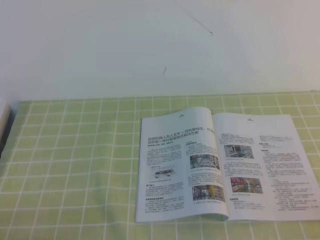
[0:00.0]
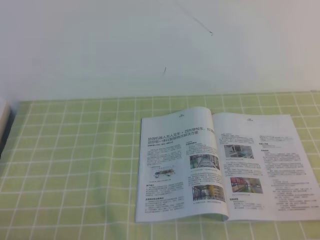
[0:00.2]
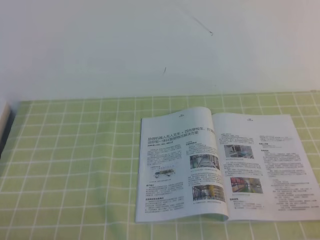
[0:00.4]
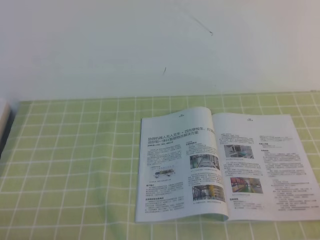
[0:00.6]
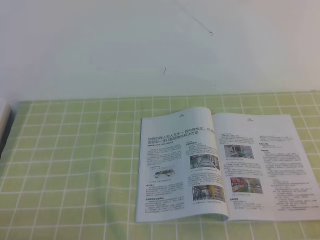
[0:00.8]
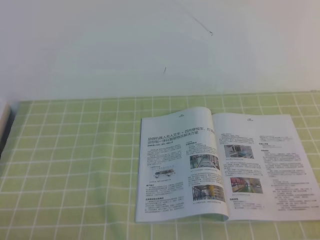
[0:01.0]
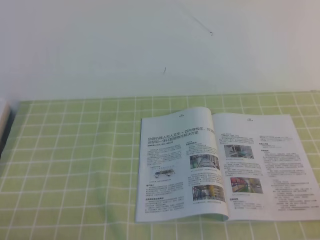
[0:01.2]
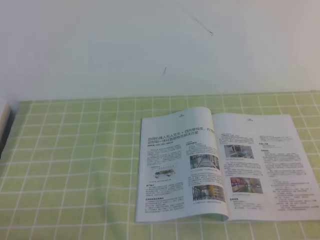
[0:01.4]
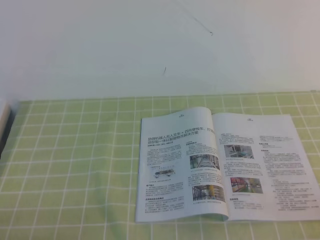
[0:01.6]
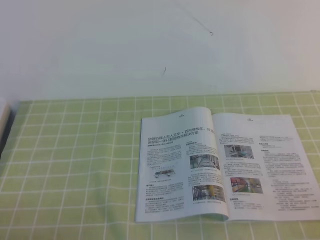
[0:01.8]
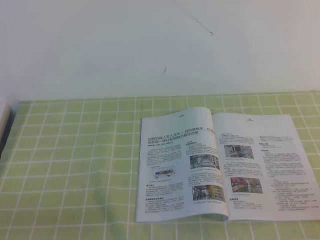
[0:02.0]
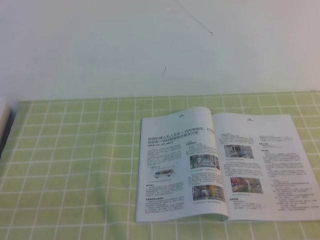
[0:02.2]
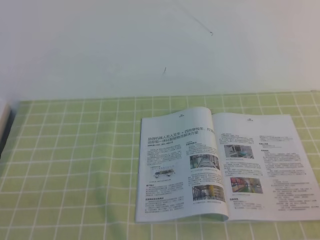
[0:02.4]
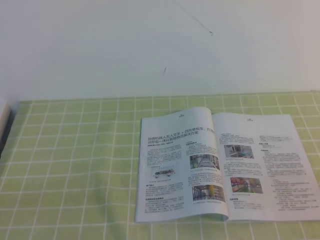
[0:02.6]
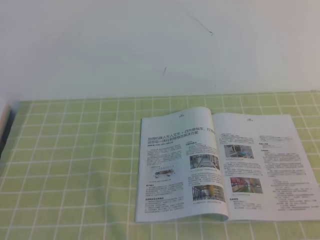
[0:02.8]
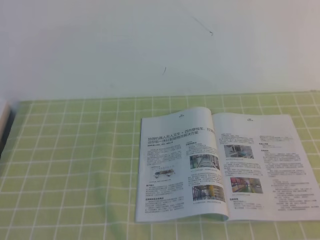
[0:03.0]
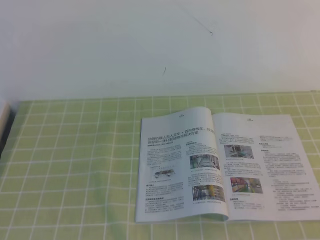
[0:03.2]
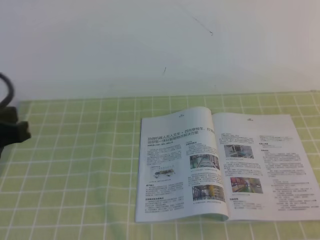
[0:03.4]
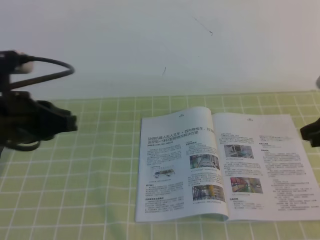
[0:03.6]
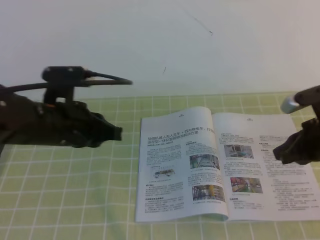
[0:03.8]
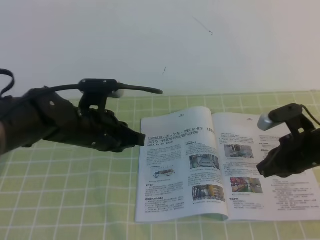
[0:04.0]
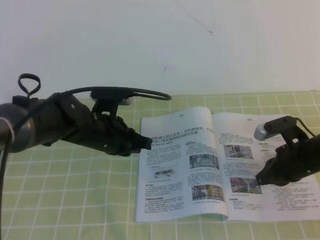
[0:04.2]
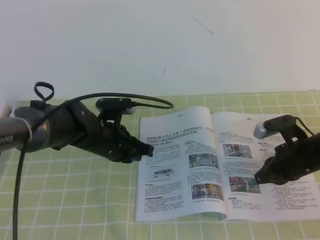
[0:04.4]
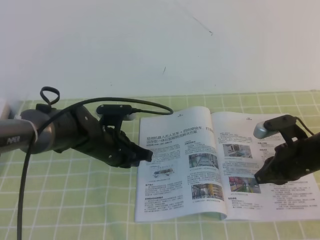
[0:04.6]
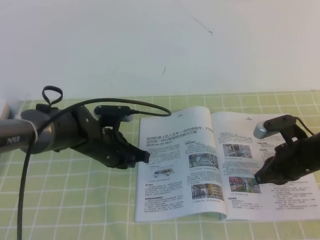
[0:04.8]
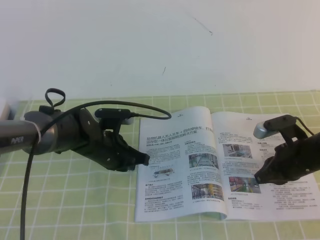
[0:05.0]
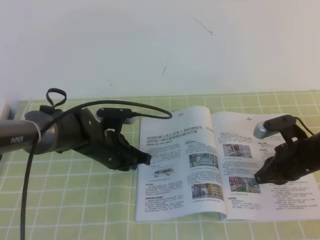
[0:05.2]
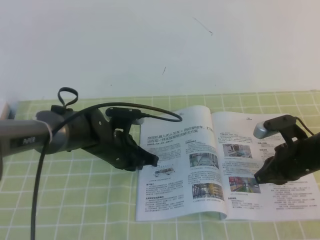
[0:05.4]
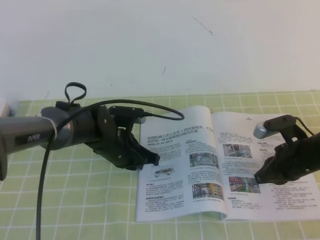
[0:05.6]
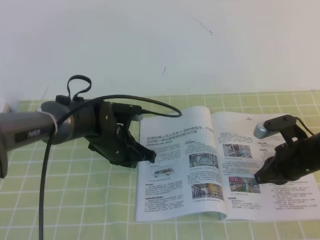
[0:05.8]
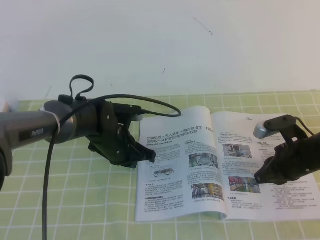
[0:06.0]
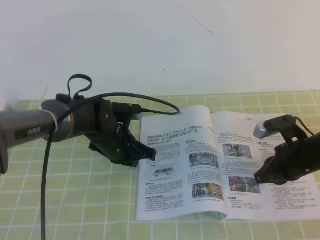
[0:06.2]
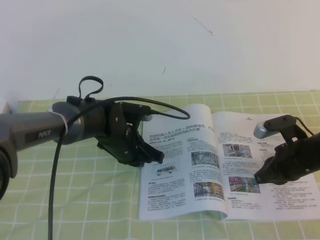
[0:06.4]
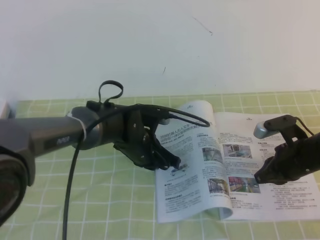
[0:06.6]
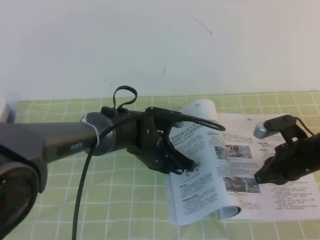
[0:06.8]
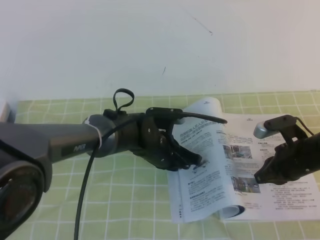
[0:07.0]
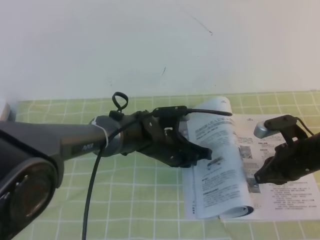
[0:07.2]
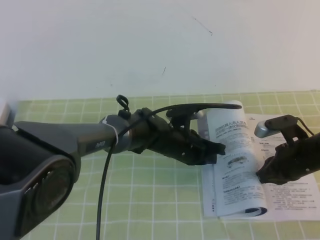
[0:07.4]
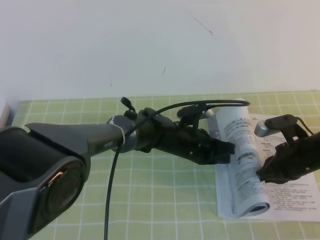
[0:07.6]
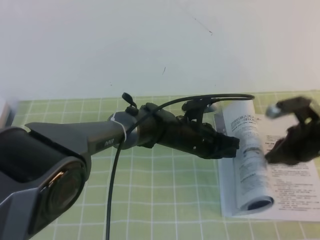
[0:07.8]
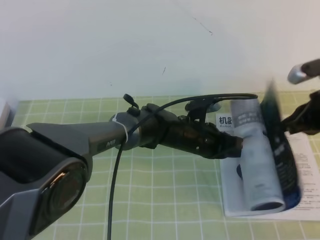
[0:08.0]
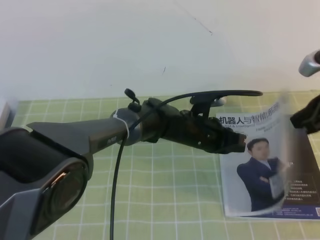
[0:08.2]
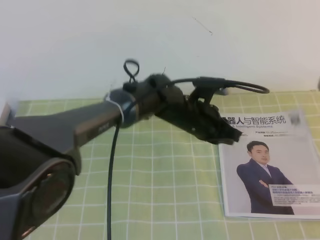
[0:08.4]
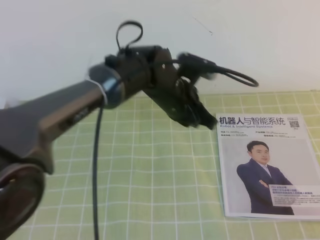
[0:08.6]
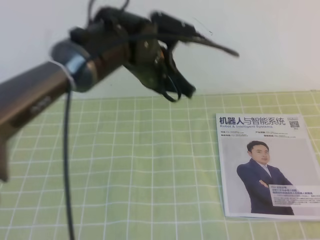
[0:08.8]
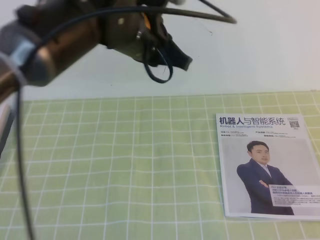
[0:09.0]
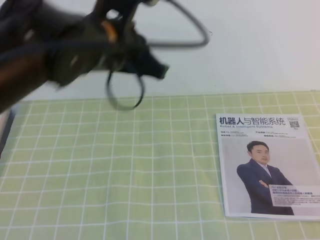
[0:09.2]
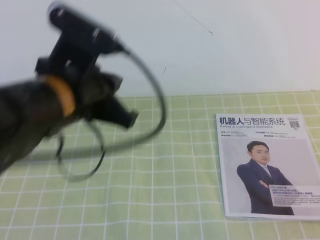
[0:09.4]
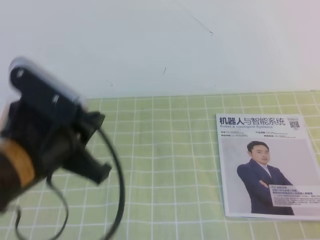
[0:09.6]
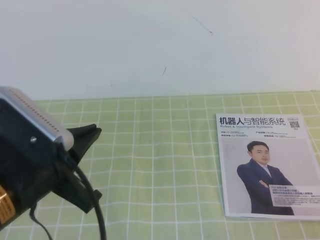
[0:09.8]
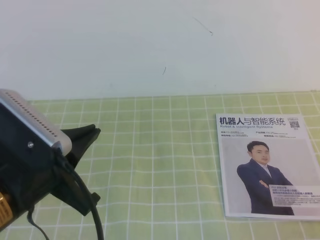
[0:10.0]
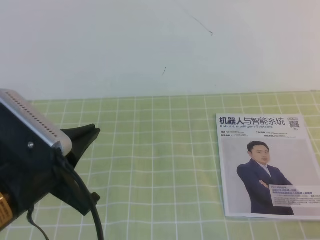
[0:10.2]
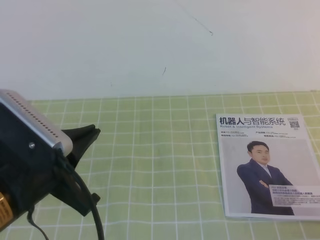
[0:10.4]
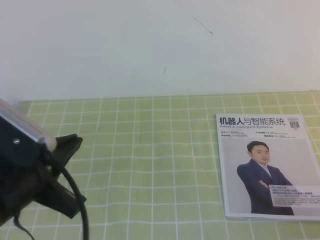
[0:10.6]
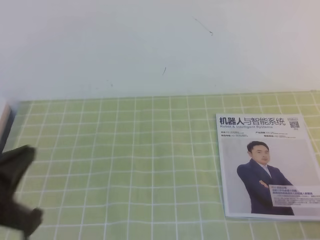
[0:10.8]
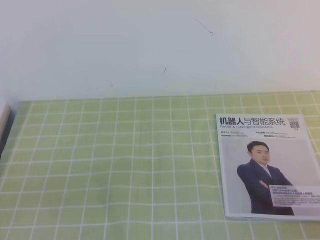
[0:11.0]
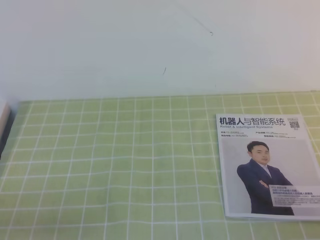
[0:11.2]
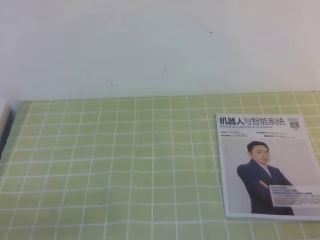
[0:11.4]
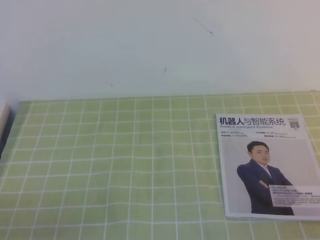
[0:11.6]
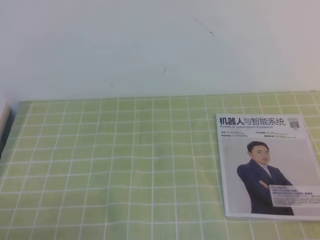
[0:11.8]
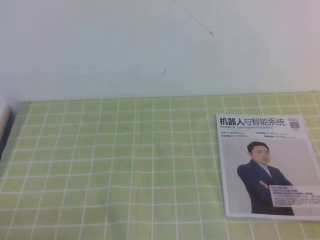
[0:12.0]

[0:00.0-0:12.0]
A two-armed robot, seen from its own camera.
Task of the whole recording: on the green tablecloth, hold the book with one hand and close it with the other.
0:00.0 to 0:01.6: The two grippers keep their place.
0:03.0 to 0:04.4: The left gripper heads forward, downward and to the right, covering roughly 35 cm, while the right gripper travels downward and forward by approximately 35 cm.
0:04.4 to 0:06.0: The grippers make only small movements.
0:06.0 to 0:07.6: The left gripper travels to the right by approximately 15 cm.
0:07.6 to 0:09.0: The left gripper moves upward, roughly 25 cm. Meanwhile the right gripper moves upward and backward, roughly 30 cm.
0:09.0 to 0:10.4: The left gripper goes some 25 cm backward and to the left, while the right gripper shifts approximately 15 cm backward and downward.
0:10.4 to 0:12.0: The left gripper shifts approximately 20 cm downward, to the left and backward.

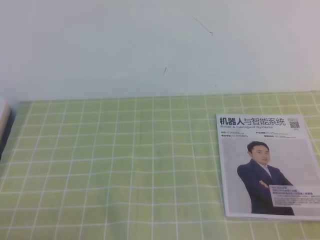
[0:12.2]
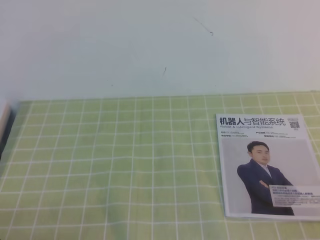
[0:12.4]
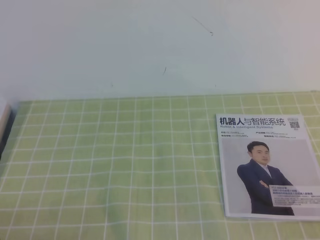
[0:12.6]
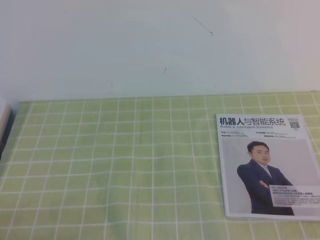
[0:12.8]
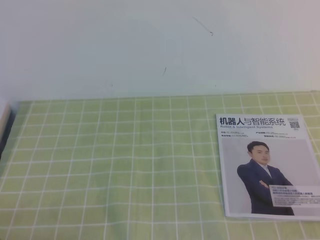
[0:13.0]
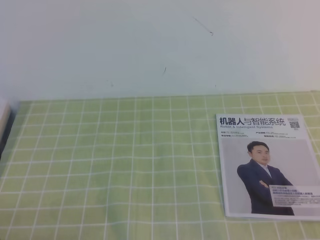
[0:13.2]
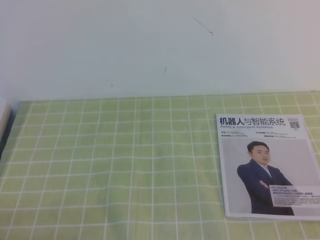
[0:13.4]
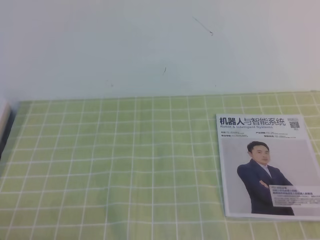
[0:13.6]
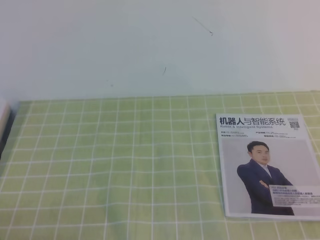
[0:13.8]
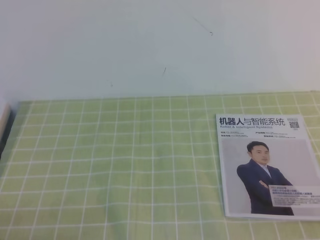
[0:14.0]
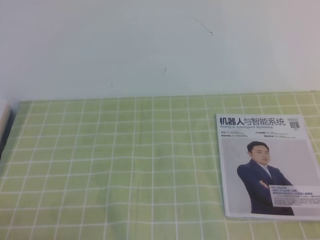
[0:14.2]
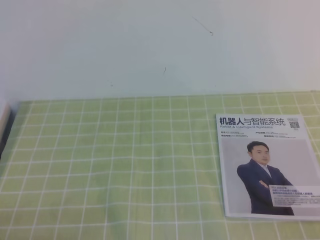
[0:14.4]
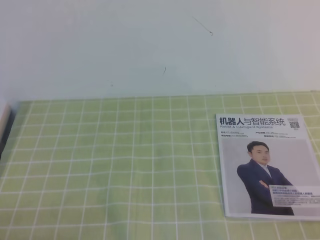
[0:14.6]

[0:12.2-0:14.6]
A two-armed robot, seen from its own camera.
Task of the whole recording: on the green tablecloth, hold the book with one hand and close it with the other.
0:12.2 to 0:13.4: The two grippers keep their place.

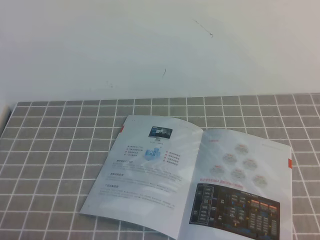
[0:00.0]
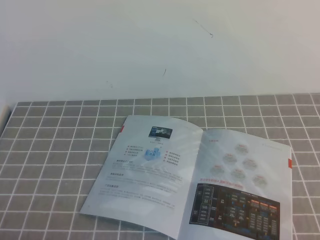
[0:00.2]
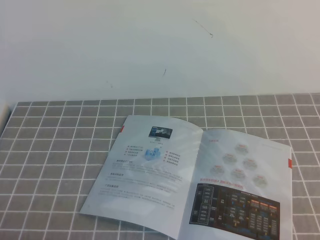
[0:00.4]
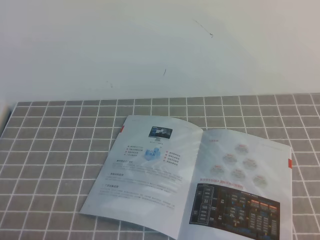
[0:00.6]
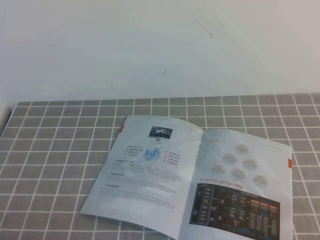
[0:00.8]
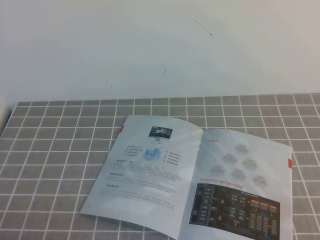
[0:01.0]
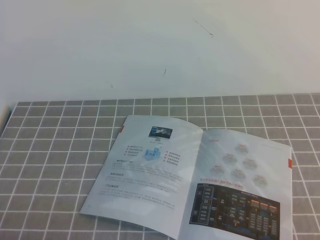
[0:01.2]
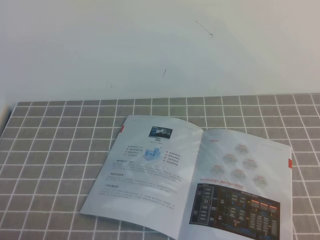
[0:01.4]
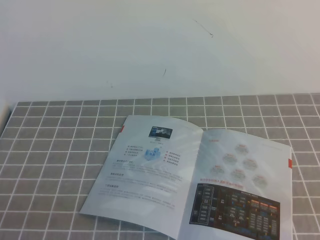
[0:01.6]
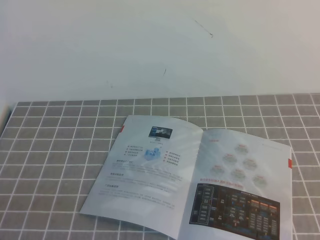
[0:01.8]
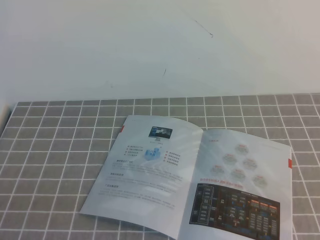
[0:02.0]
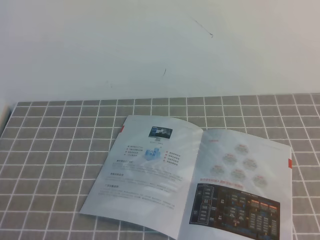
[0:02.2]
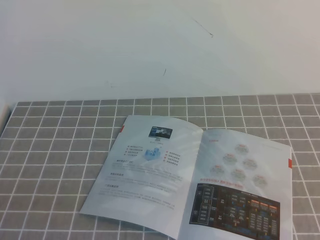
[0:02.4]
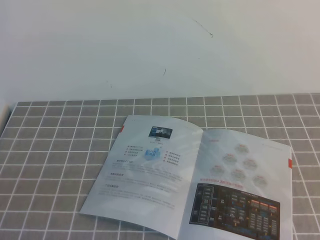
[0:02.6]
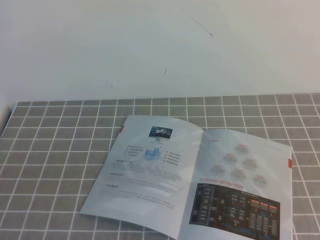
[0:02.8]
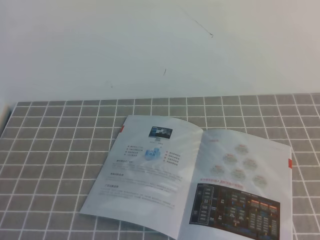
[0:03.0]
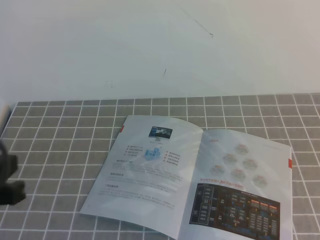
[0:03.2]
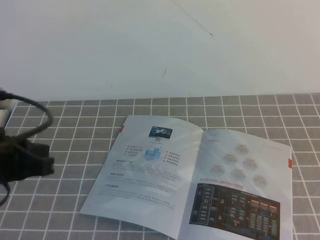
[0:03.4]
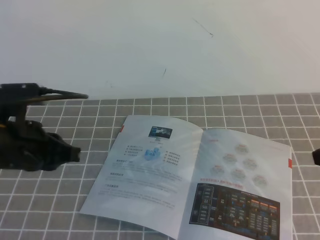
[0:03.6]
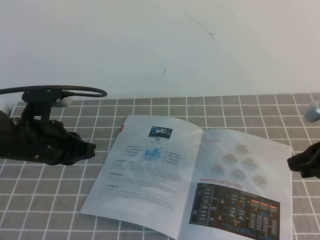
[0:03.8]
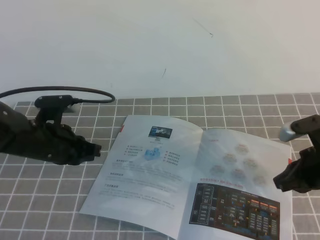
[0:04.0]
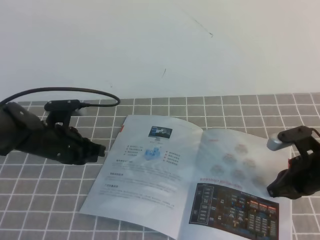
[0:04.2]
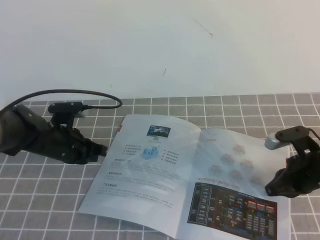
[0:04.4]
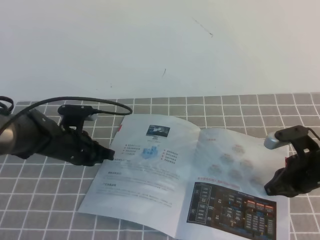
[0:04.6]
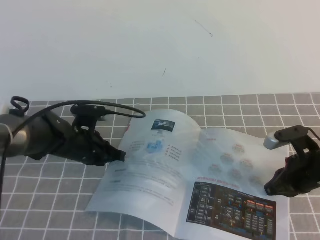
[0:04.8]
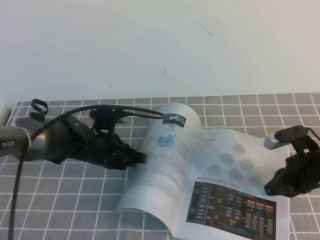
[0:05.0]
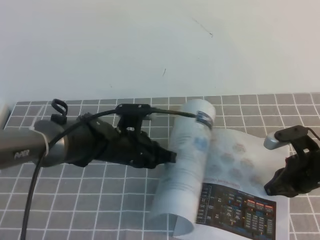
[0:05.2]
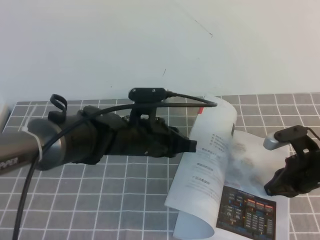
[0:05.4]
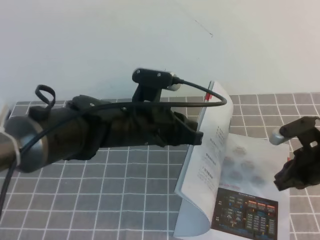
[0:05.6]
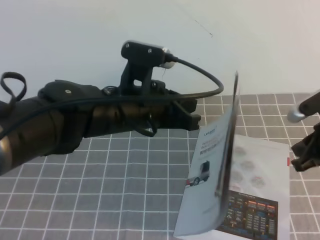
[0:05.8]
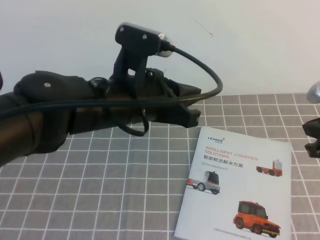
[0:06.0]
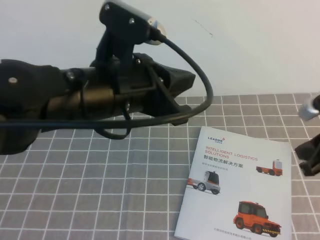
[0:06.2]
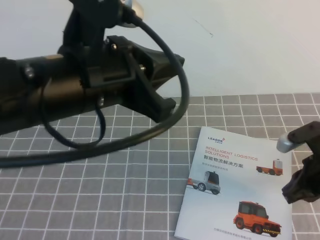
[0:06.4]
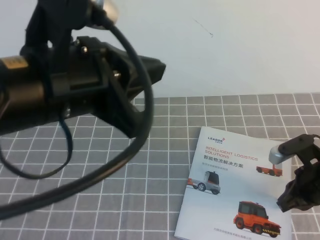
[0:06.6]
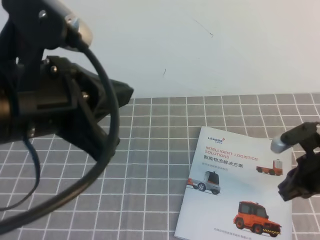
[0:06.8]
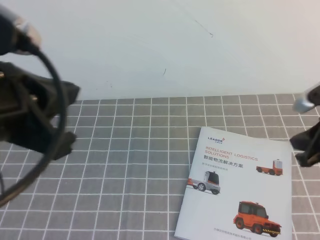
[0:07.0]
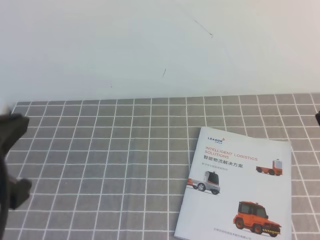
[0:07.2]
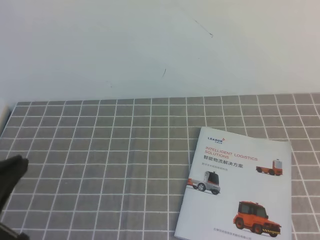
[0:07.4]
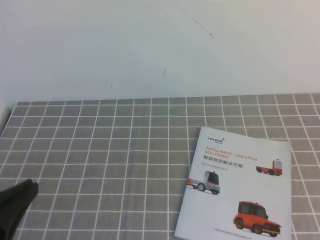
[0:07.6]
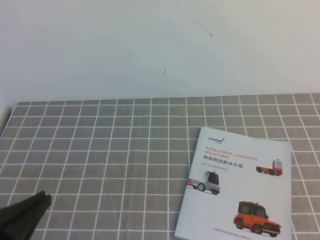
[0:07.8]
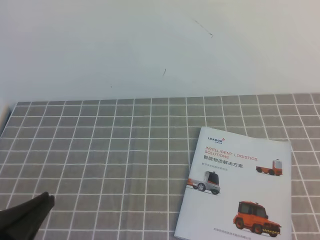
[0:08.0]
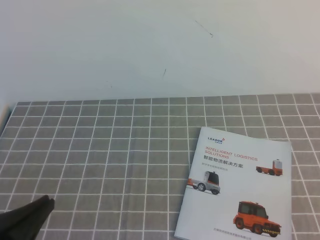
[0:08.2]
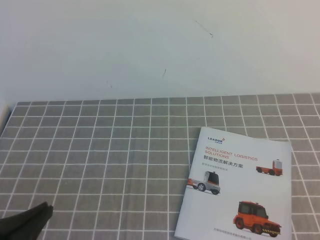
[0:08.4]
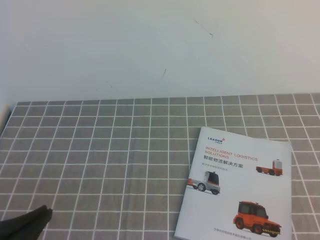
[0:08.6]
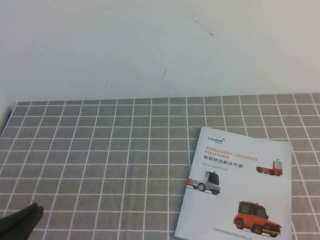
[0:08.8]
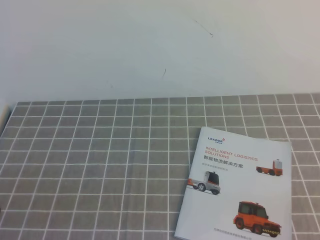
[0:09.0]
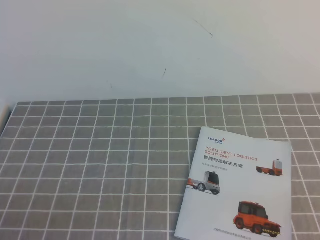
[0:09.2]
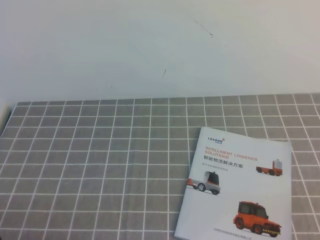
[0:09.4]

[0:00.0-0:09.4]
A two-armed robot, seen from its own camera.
Task of the whole recording: on the grey tablecloth, hold the book with one hand and close it with the other.
0:01.6 to 0:03.2: The left gripper shifts approximately 15 cm upward and forward.
0:03.2 to 0:04.8: The right gripper moves downward and forward, approximately 30 cm. Meanwhile the left gripper travels forward and downward by about 30 cm.
0:04.8 to 0:06.2: The left gripper travels upward and backward by approximately 25 cm; the right gripper goes some 10 cm upward.
0:06.2 to 0:07.8: The right gripper is displaced backward by approximately 20 cm; the left gripper travels backward, to the left and downward by about 25 cm.
0:07.8 to 0:09.4: The left gripper heads downward, covering about 5 cm.
